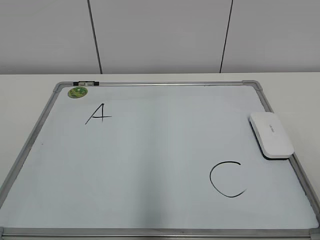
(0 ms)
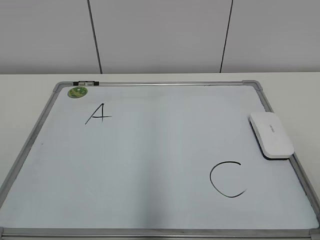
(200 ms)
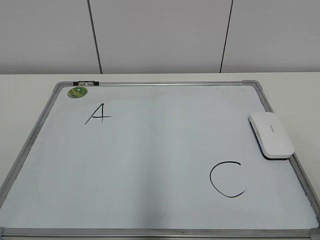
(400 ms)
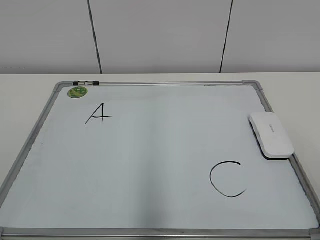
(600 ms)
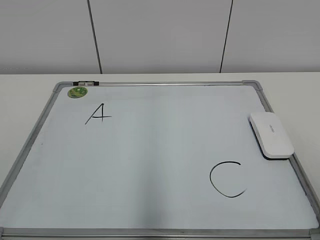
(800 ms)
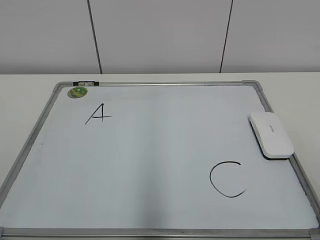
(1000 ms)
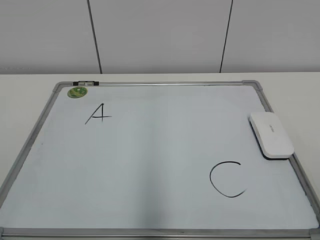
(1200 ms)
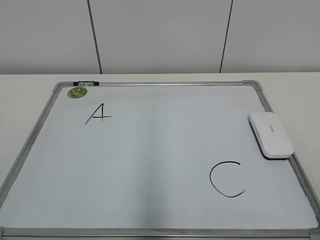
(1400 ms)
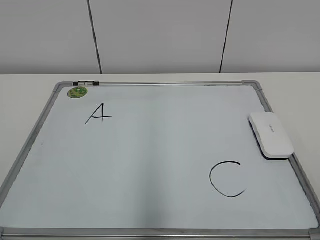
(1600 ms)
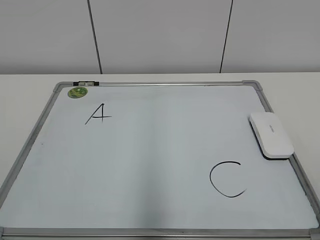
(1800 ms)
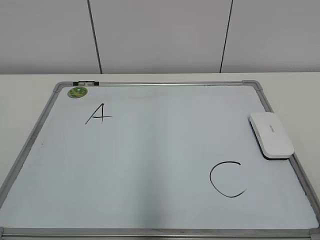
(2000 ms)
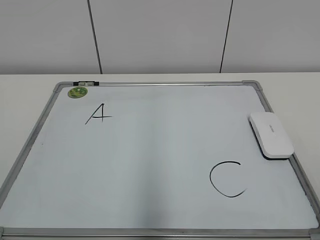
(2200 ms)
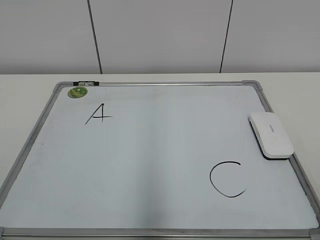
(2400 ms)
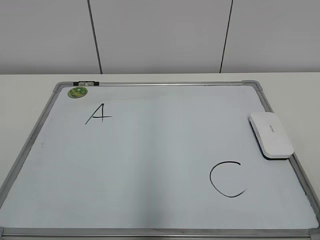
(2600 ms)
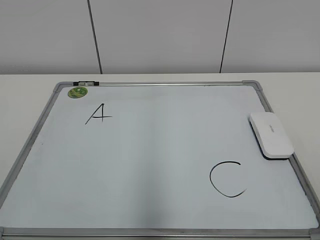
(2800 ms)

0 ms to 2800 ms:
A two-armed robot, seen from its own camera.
Task of the whole recording: pick up the eraser on the blackboard and erase the letter "B".
1400 ms to 2800 ms: Both grippers stay about where they are.
